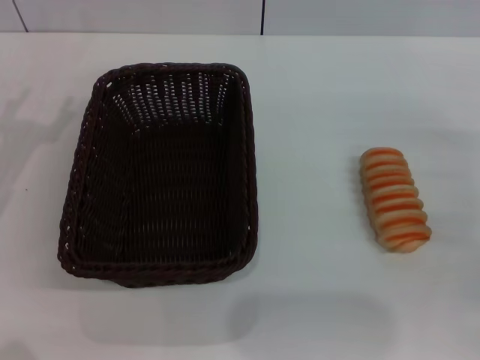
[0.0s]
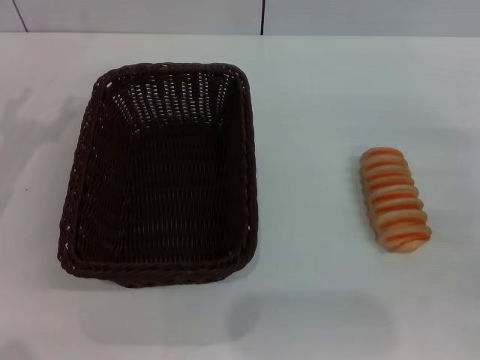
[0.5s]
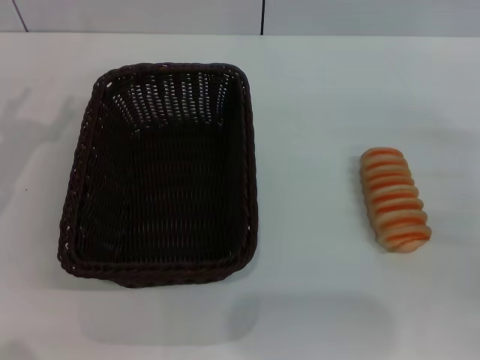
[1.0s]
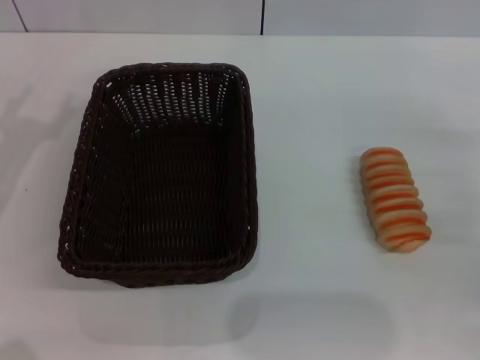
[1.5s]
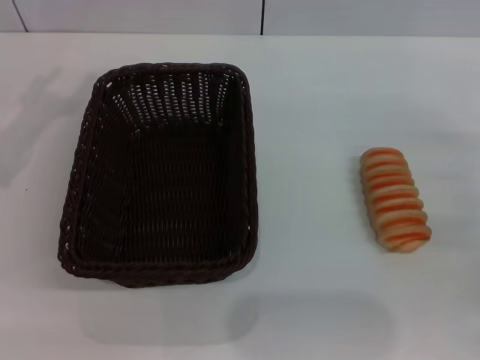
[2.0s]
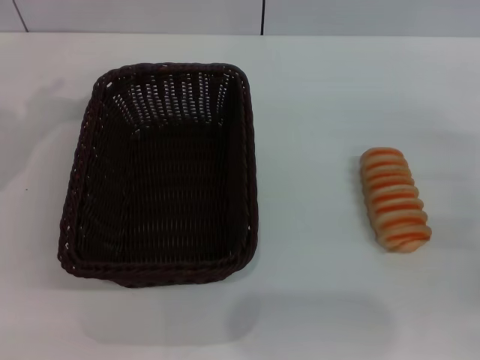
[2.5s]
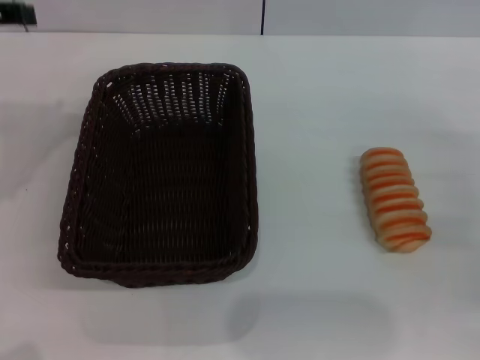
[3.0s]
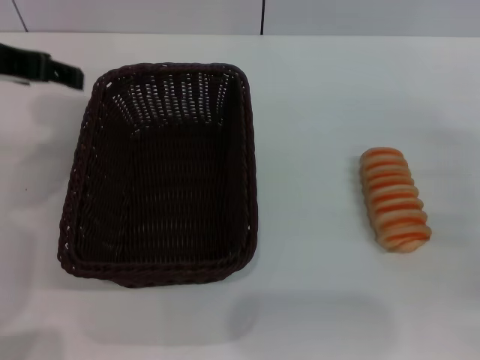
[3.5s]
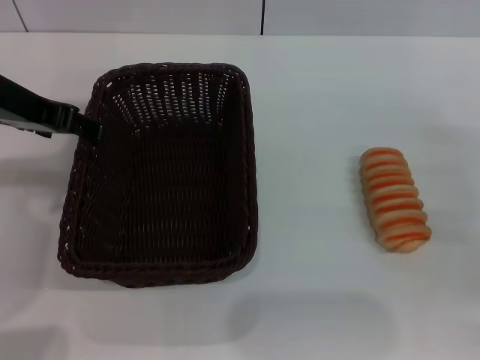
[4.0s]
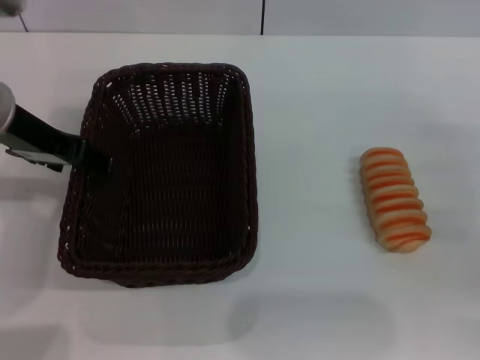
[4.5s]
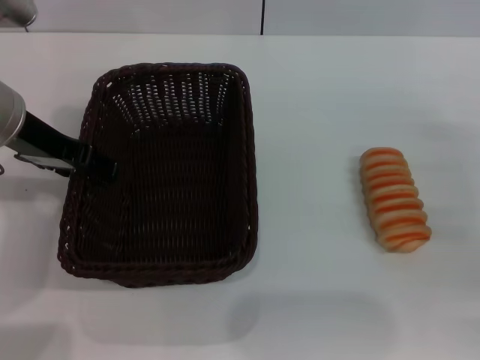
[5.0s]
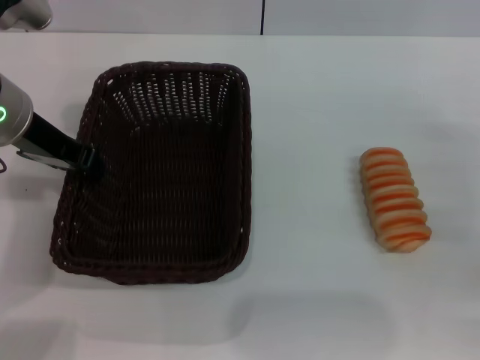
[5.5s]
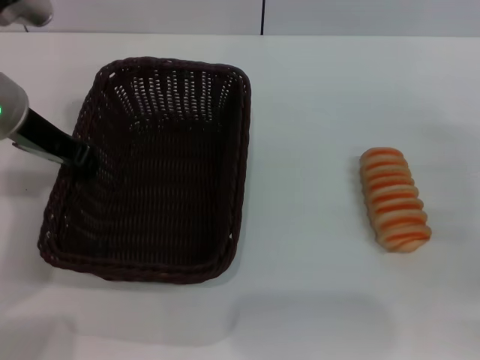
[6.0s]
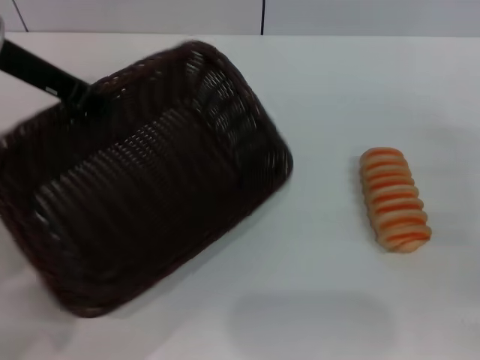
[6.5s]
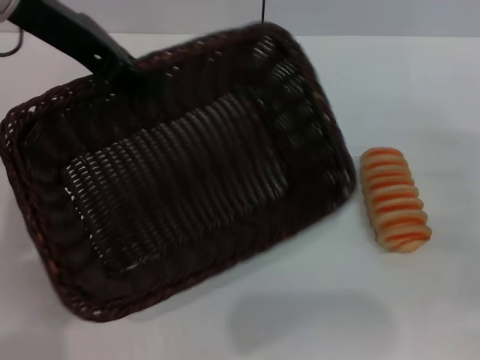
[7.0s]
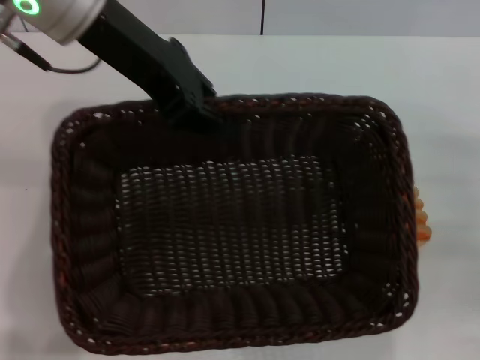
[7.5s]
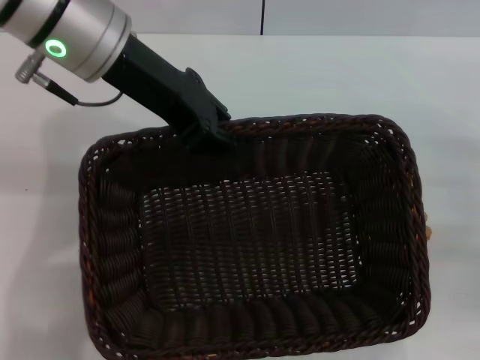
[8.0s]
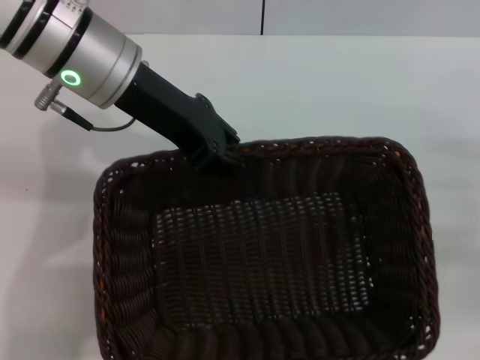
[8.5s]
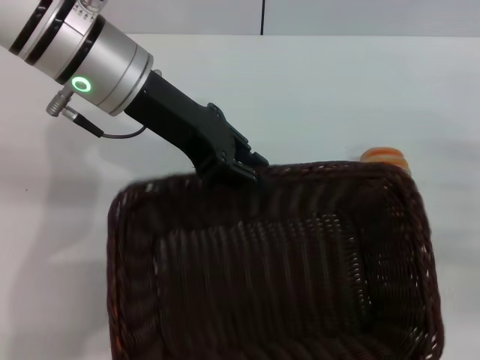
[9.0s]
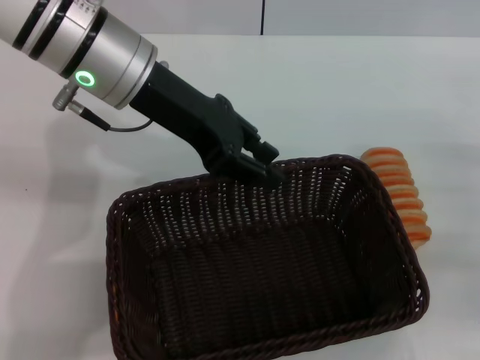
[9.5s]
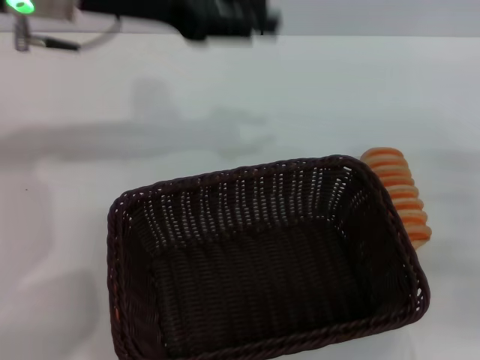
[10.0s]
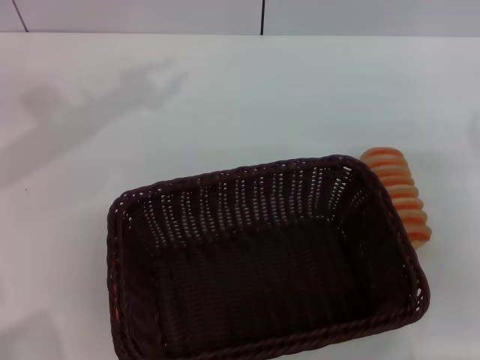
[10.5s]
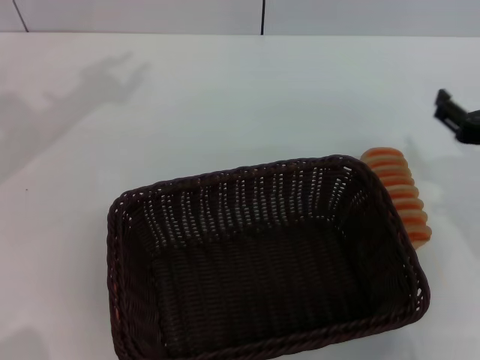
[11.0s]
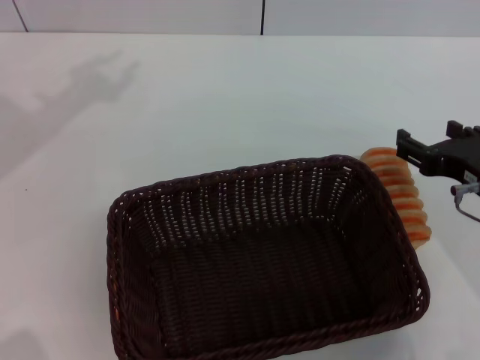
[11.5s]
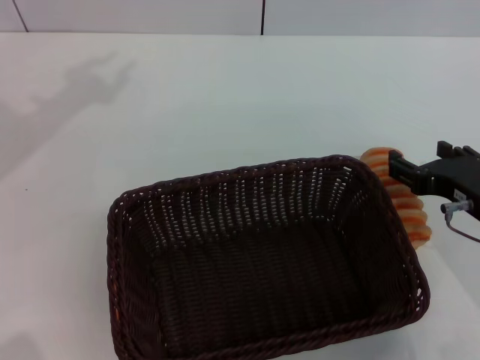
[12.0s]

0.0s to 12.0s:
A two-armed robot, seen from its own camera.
Step, 0.0s to 5.5s: Grasp the basket with the left gripper.
Step, 6.0s to 9.0s: Place the basket in the center of the table with the left gripper.
2.0s to 4.0s: The left gripper moves to the right and upward, approximately 15 cm.
4.0s to 6.0s: The left gripper closes.
6.0s to 8.0s: The left gripper heads to the right and upward, covering about 10 cm.
10.0s to 12.0s: The two grippers go approximately 15 cm to the left.

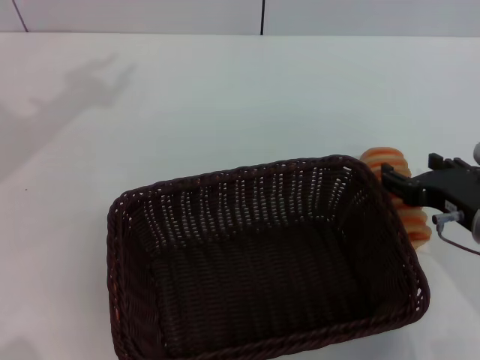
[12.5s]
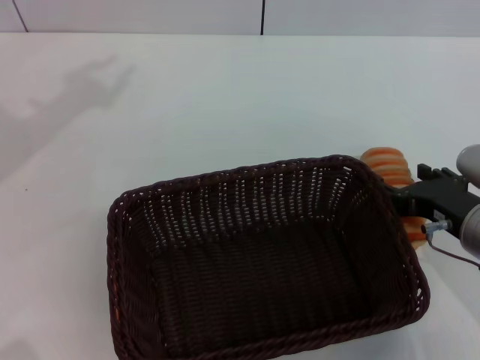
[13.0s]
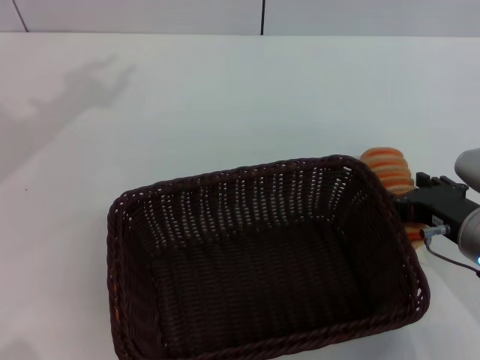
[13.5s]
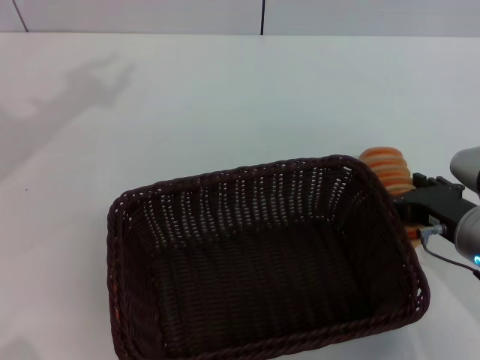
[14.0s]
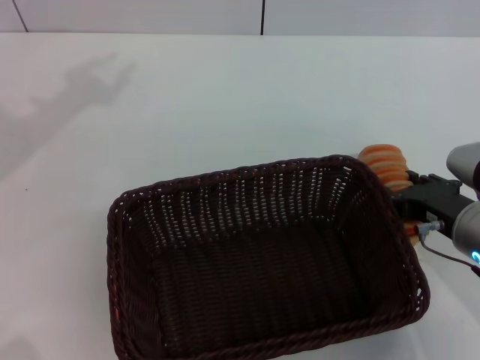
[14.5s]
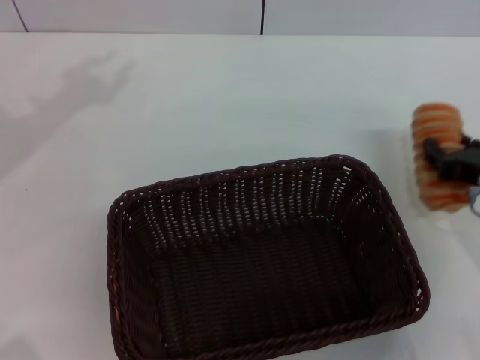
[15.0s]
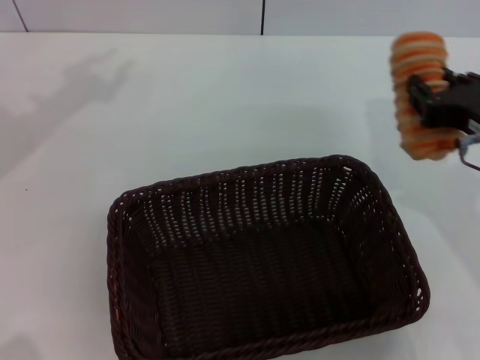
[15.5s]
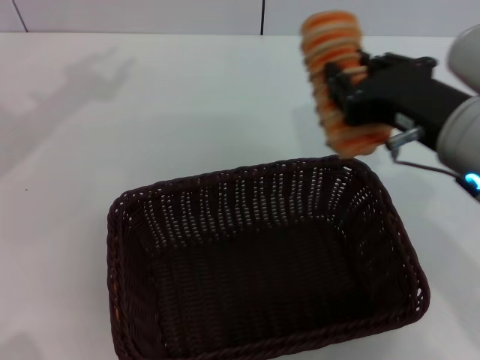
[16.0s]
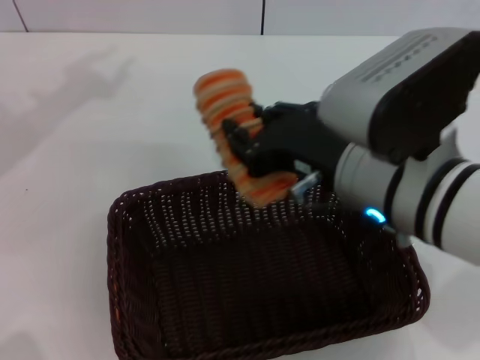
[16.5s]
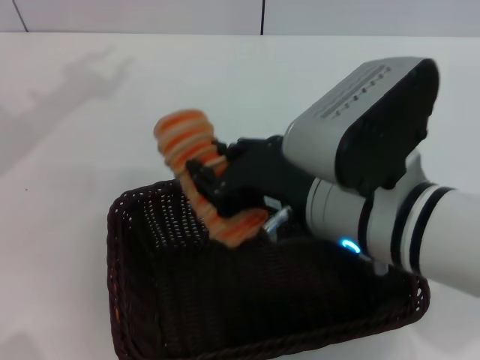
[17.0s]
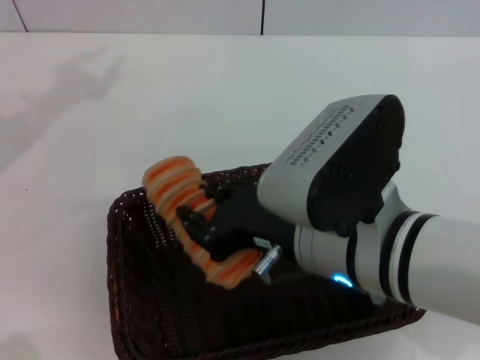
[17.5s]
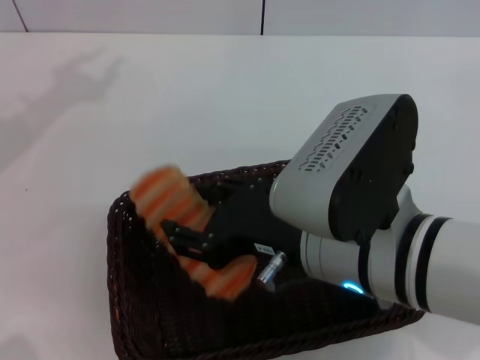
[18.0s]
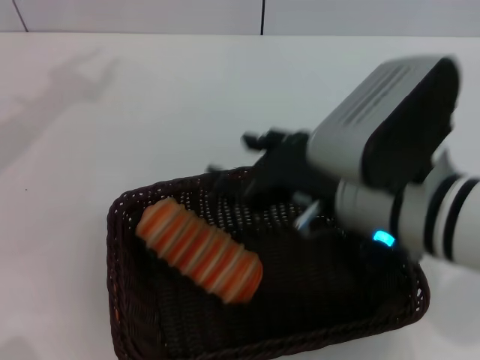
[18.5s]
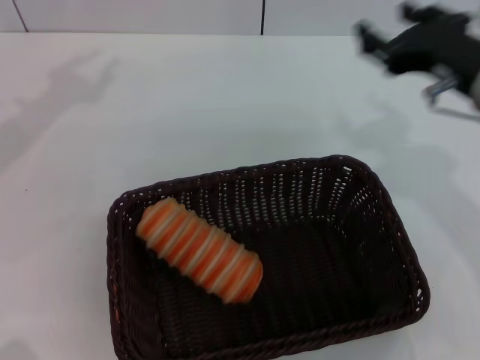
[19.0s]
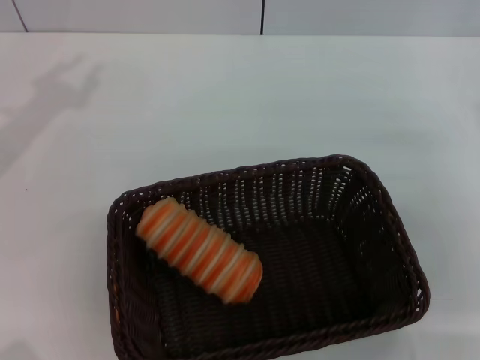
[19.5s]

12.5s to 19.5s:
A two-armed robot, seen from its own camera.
Step, 15.0s to 18.5s: Place the long bread in the basket with right gripper.
12.5s to 14.5s: The right gripper closes.
14.5s to 16.0s: The right gripper is displaced upward and to the left by roughly 15 cm, and closes up.
16.0s to 17.5s: The right gripper shifts roughly 10 cm to the left.
17.5s to 19.5s: The right gripper goes roughly 25 cm to the right, and opens up. The left gripper heads downward, covering about 5 cm.
